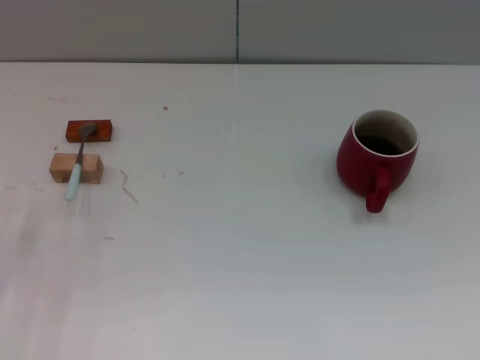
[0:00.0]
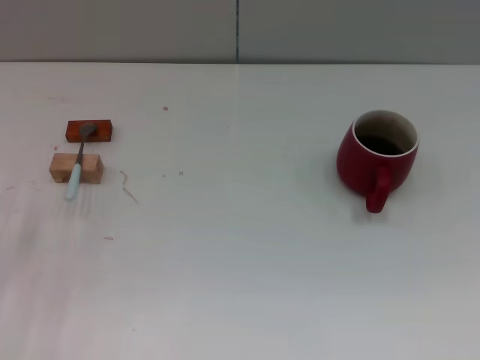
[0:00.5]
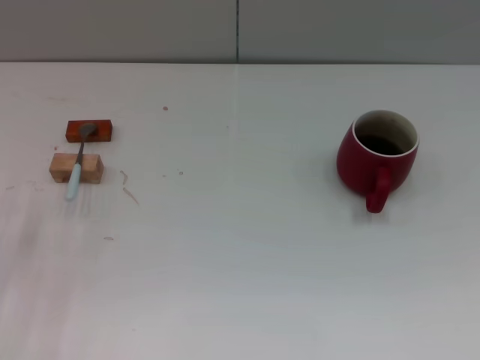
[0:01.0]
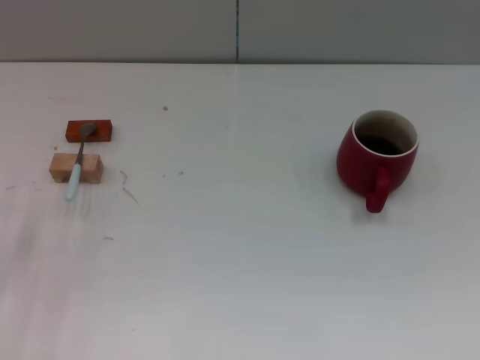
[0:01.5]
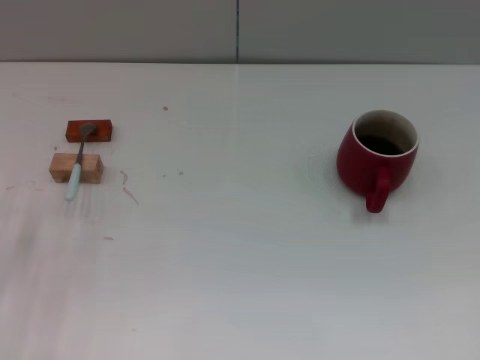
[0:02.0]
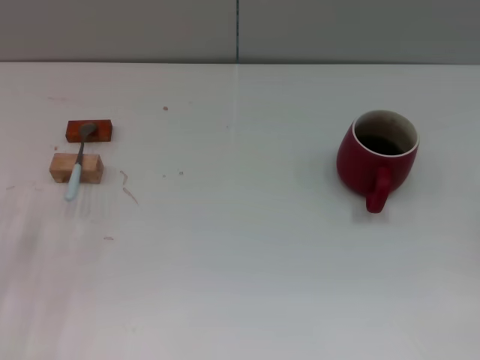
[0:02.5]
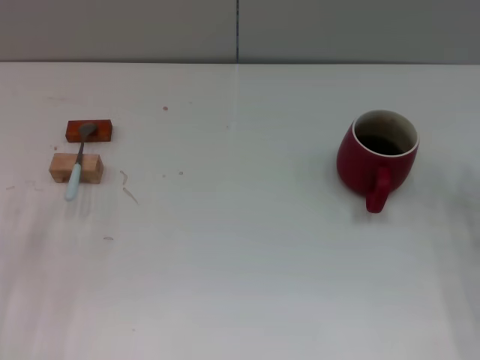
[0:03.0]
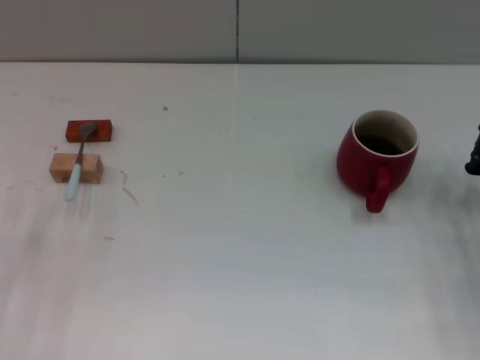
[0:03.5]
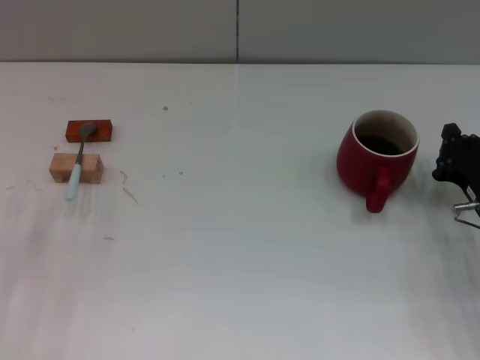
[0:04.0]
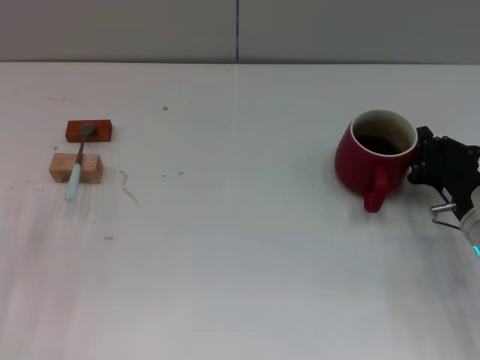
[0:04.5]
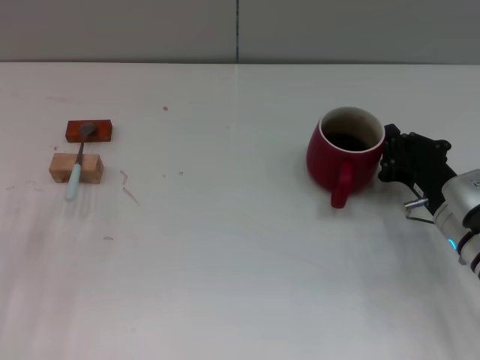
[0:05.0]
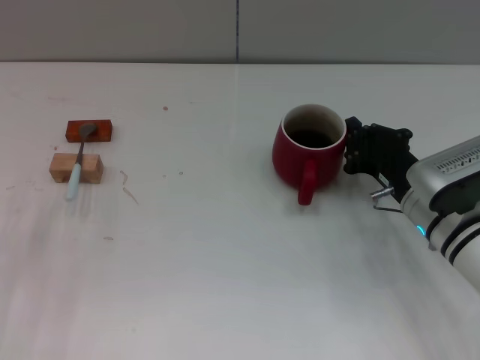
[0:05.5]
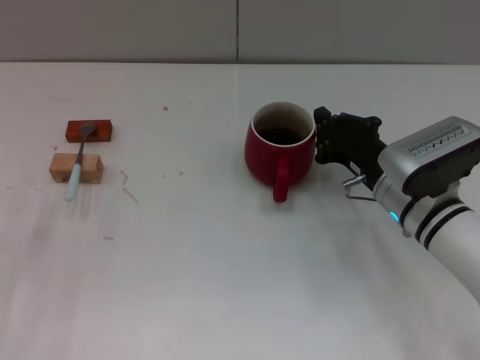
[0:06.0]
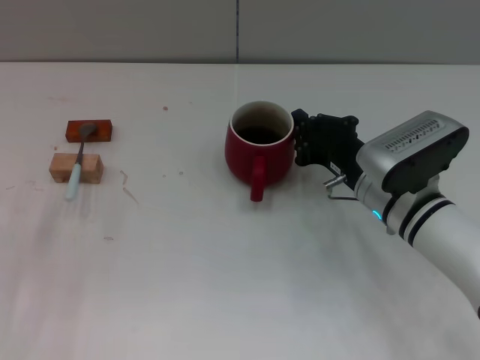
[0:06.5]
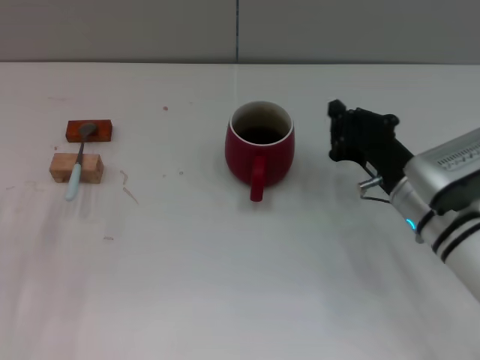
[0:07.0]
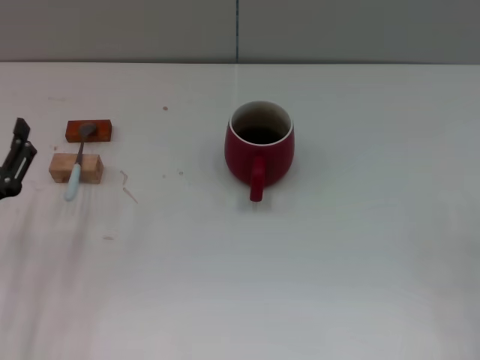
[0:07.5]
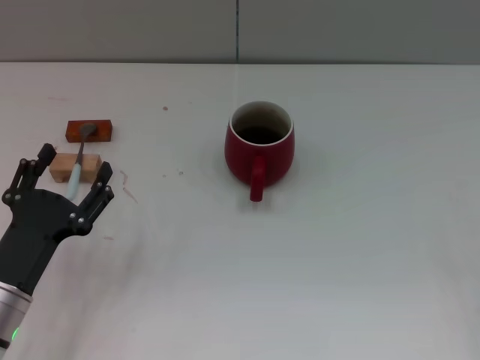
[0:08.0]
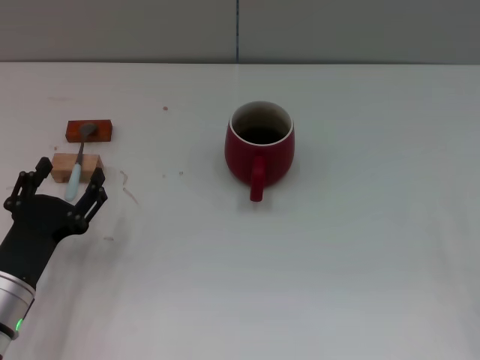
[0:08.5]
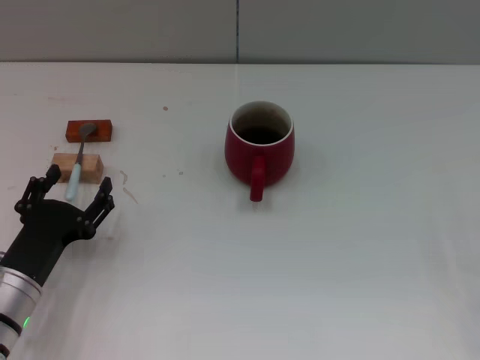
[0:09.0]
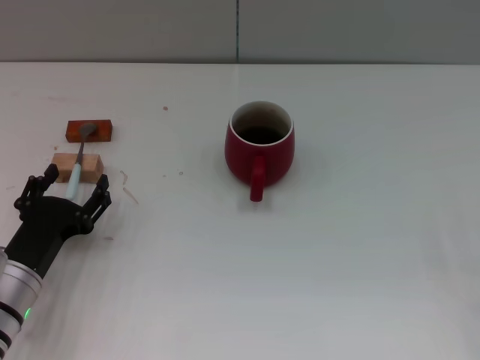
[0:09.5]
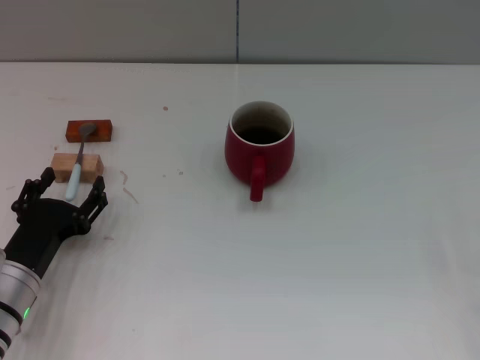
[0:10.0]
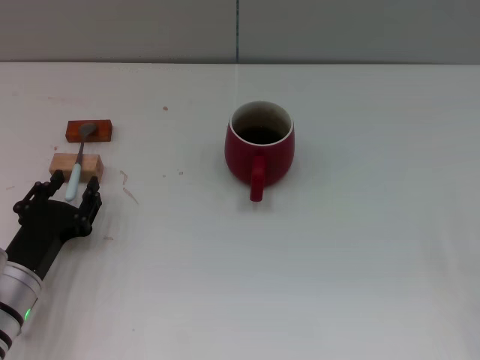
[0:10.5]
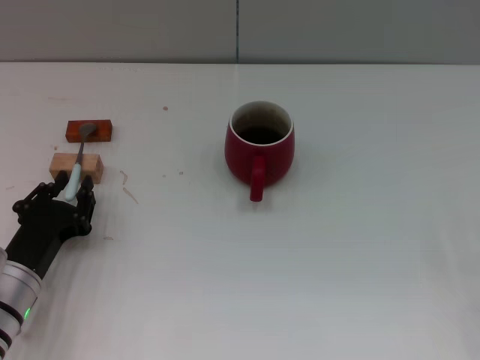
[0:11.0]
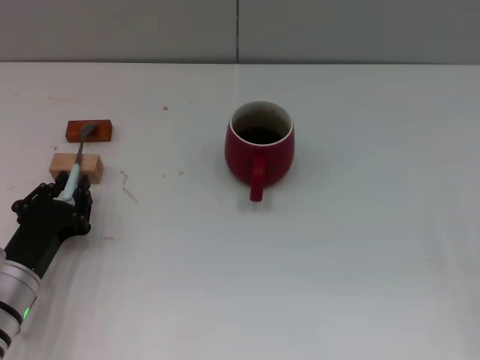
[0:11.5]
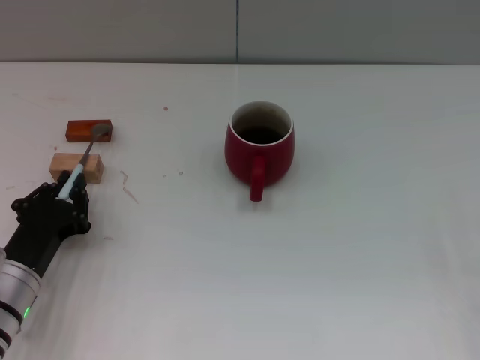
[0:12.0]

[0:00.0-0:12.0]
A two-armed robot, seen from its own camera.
Task of the whole recording: Move the red cup to the center, lift the blue spoon, stir it three times in the cup, and put the spoon into the cup.
Step, 0:00.0 to 0:07.0: Move the cup with coffee to the center of view with the right gripper.
0:02.0 to 0:04.0: The right gripper is displaced forward and to the left by some 15 cm.
0:04.0 to 0:06.0: The right gripper shifts approximately 10 cm to the left.
0:06.0 to 0:08.0: The right gripper is displaced to the right and backward by some 20 cm, and opens. Meanwhile the left gripper goes approximately 5 cm to the right.
0:10.0 to 0:12.0: The left gripper closes.

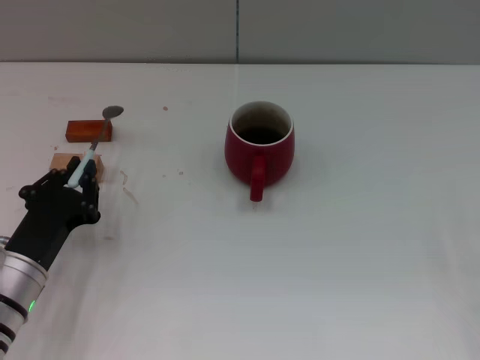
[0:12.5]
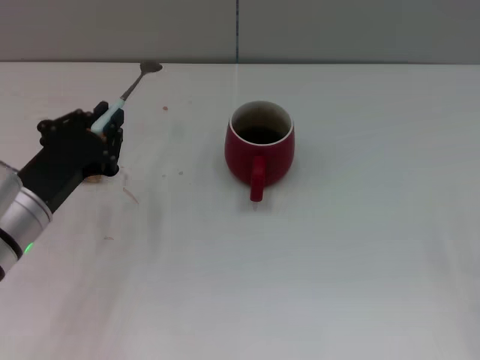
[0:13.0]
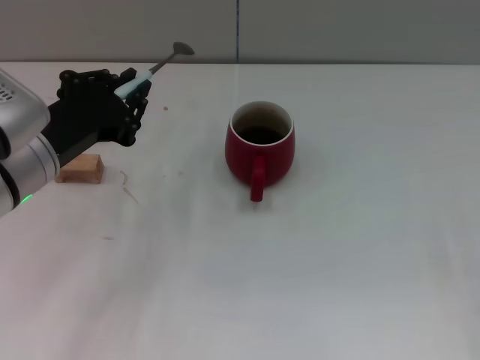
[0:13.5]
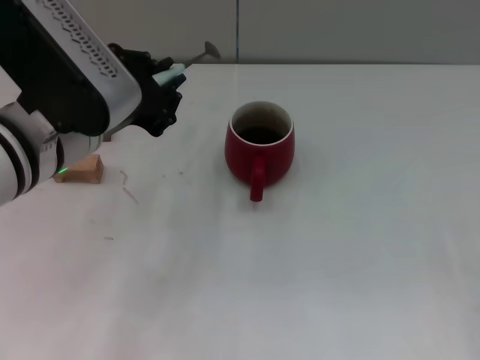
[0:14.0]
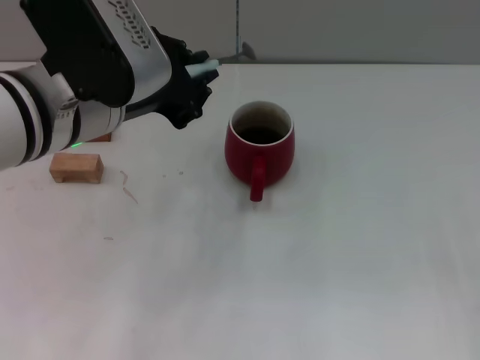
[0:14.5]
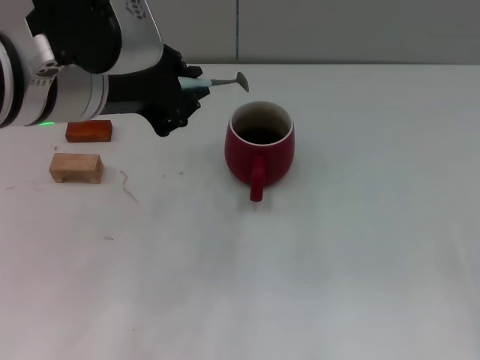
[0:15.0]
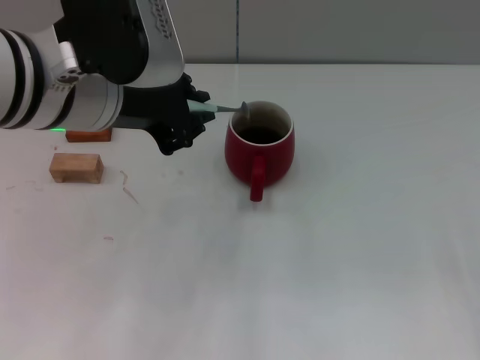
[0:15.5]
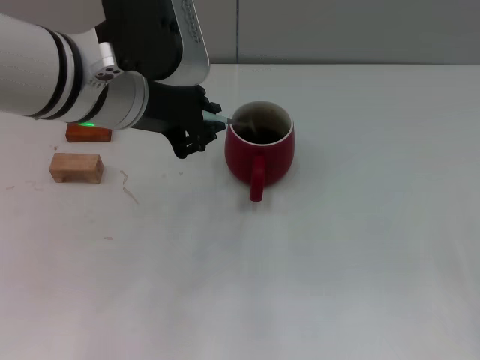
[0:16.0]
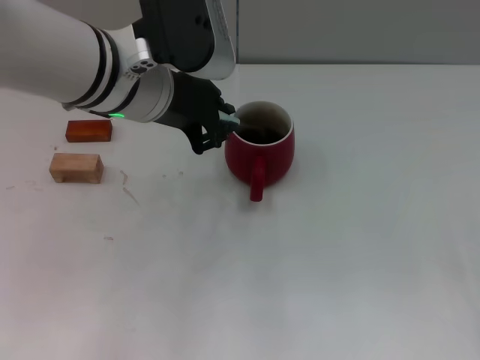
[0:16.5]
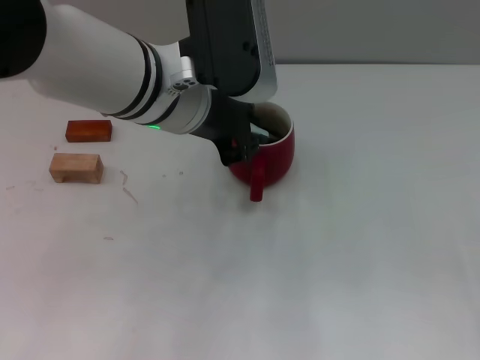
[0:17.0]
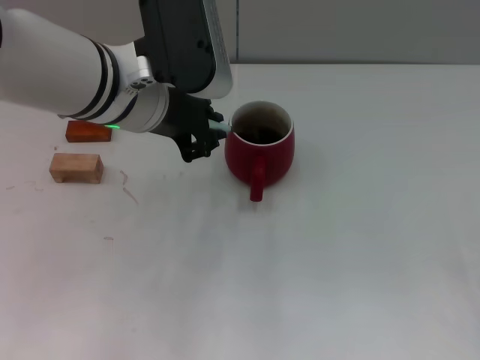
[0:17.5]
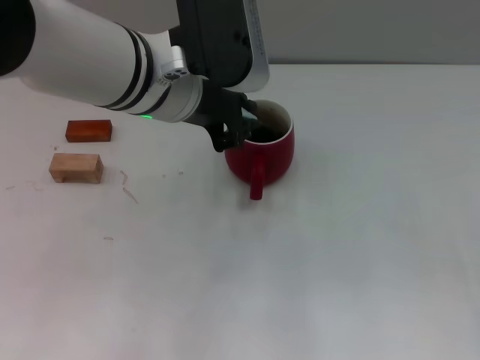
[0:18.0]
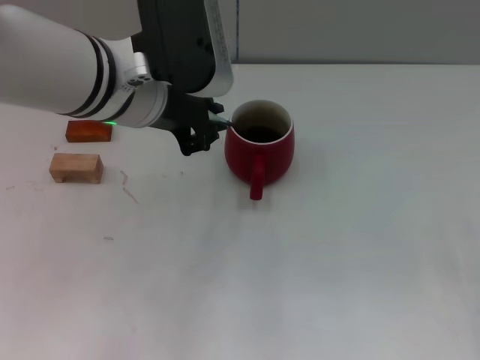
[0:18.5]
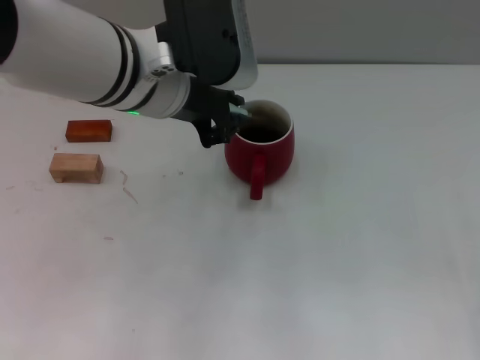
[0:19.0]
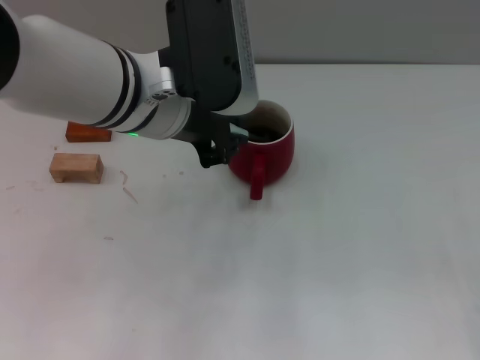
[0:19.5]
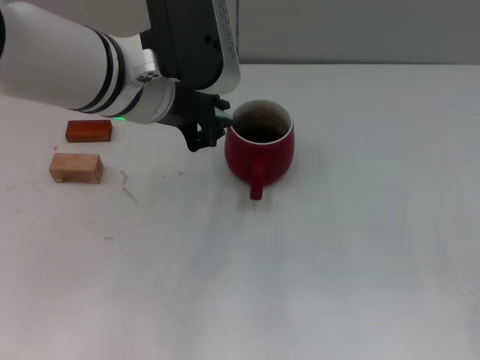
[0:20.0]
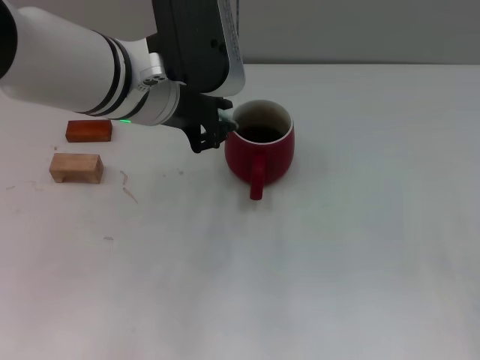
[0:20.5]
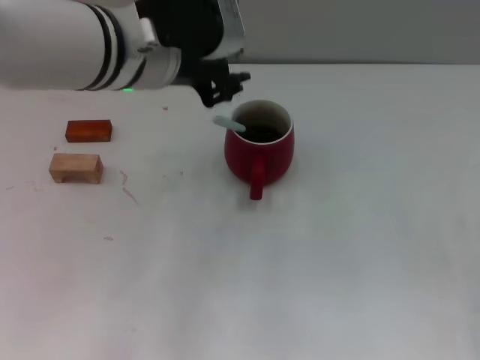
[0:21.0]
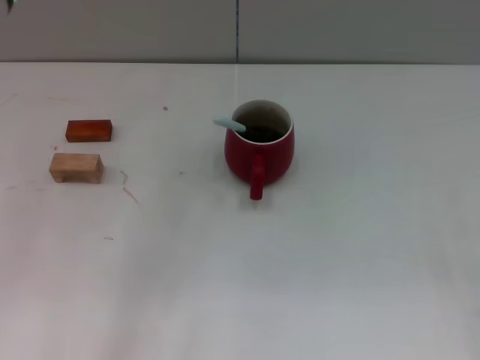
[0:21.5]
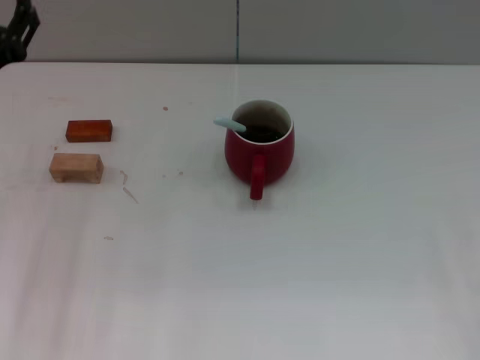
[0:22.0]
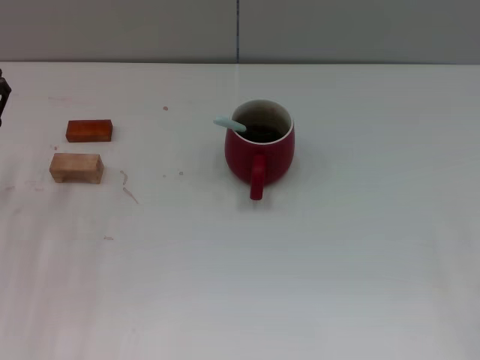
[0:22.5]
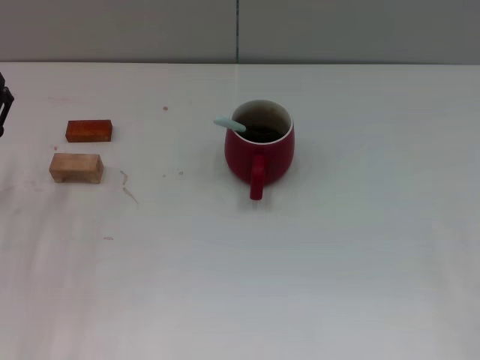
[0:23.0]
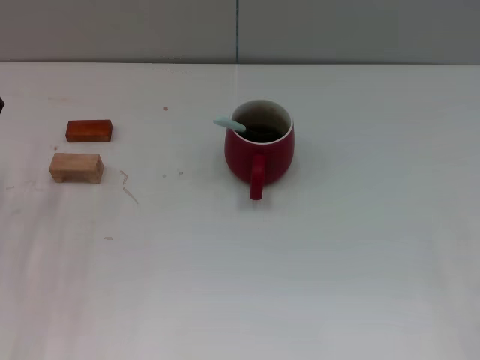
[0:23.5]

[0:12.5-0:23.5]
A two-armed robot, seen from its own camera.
Task of the whole recording: Move the red cup to the center, lift the blue spoon, stir it three times in the cup, and put the spoon into the cup.
Step, 0:13.5 to 0:20.5: Stir the coffee in the cup with the left gripper.
0:12.5 to 0:14.5: The left gripper travels upward and to the right by some 25 cm.
0:16.0 to 0:20.0: The grippers stay close to where they were, moving slightly.
0:20.0 to 0:21.5: The left gripper is displaced to the left and upward by some 10 cm, and opens.

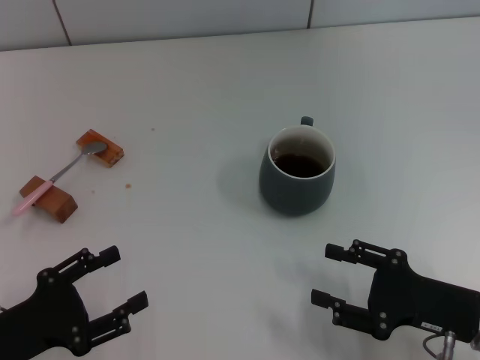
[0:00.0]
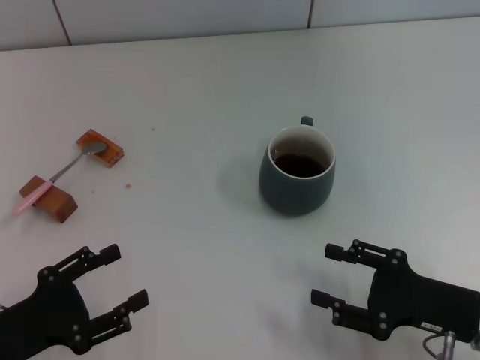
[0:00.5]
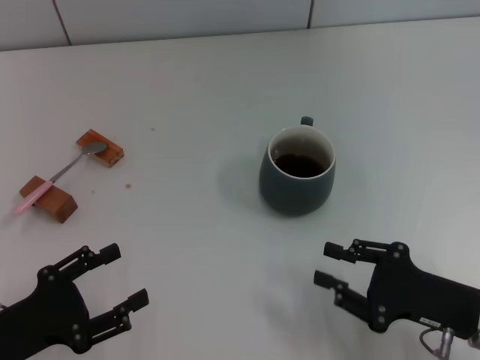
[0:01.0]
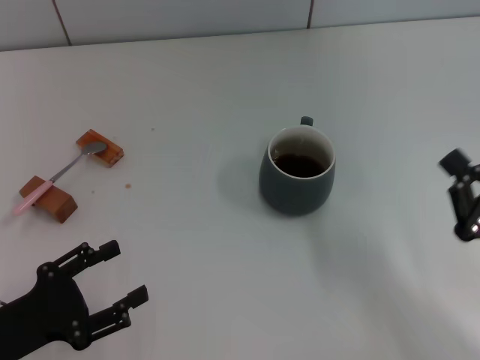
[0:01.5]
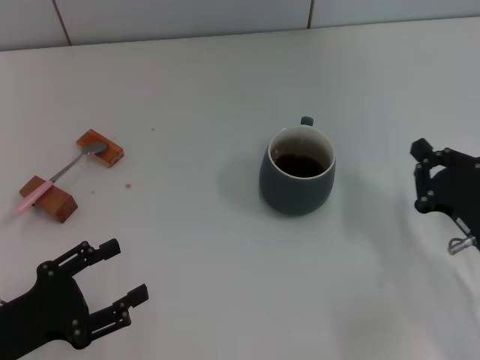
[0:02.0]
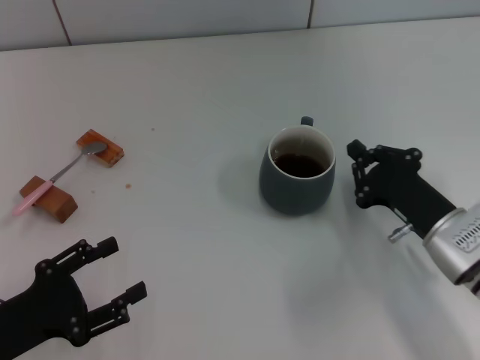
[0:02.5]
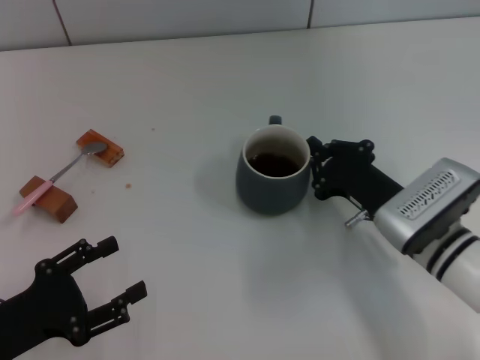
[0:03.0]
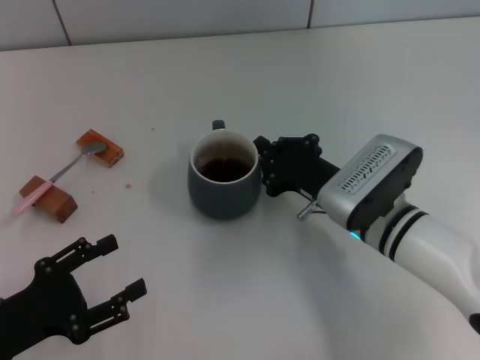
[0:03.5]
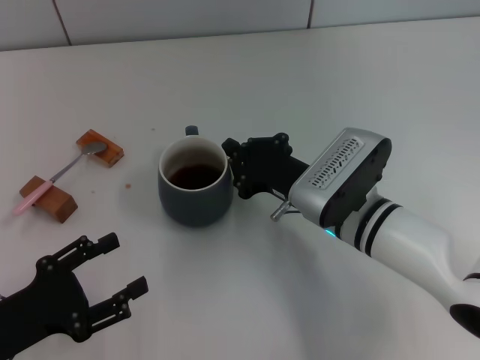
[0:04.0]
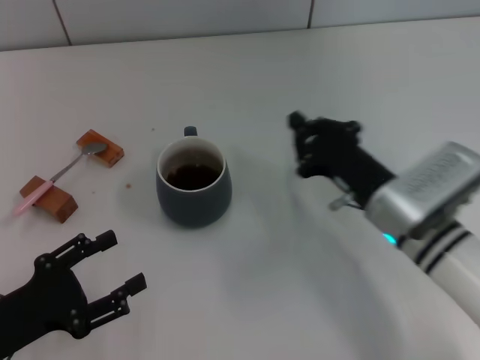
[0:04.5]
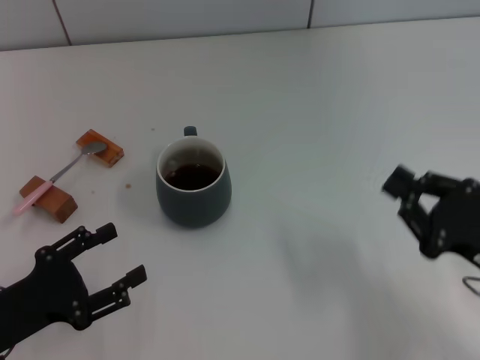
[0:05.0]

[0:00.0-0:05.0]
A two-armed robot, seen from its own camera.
Task of the whole recording: Move the grey cup to the center, lift the pink spoon, stir it three times in the cup, and put the spoon into the cup.
Step, 0:00.0 to 0:04.0: Move the cup with coffee to the center of view with the right gripper.
0:00.0 to 0:02.5: The right gripper shifts approximately 5 cm forward, and closes its fingers.
0:02.5 to 0:05.0: The right gripper is displaced backward by roughly 5 cm, and reaches about 10 cm to the left, then returns.
